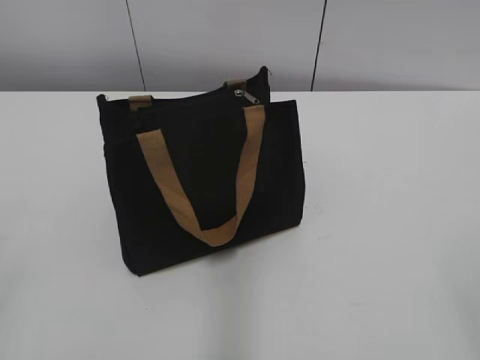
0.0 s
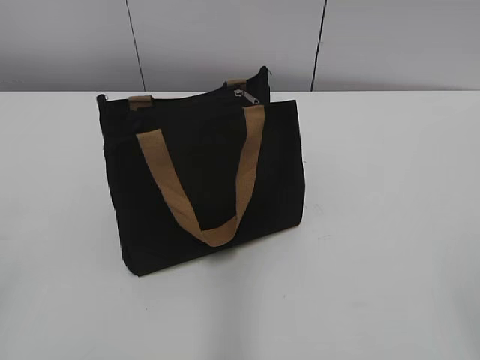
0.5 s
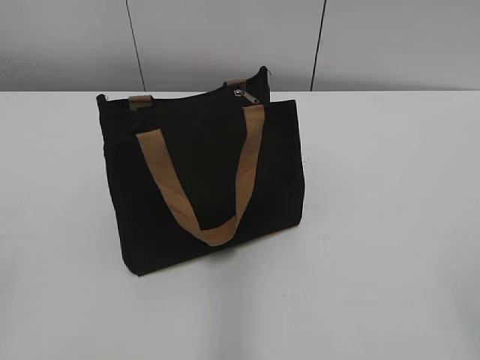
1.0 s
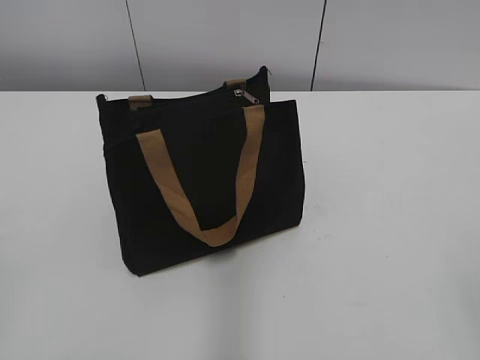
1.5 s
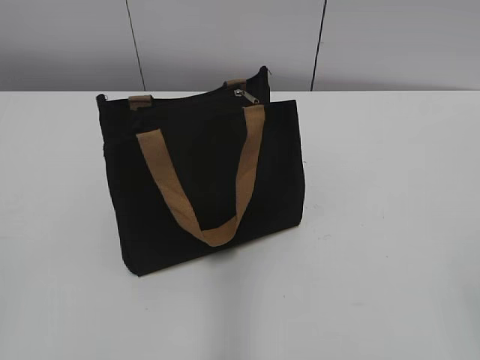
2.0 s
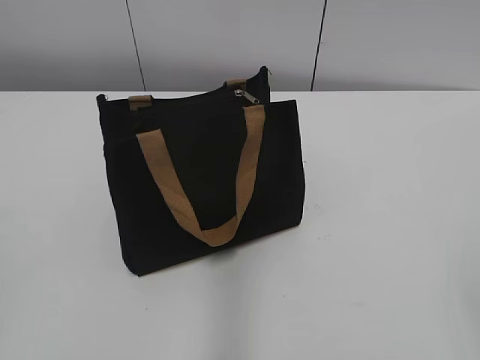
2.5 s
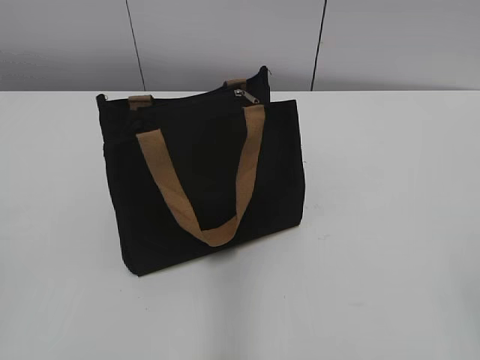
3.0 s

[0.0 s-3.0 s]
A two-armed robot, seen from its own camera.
1.5 to 3.0 s: Neither gripper changes place.

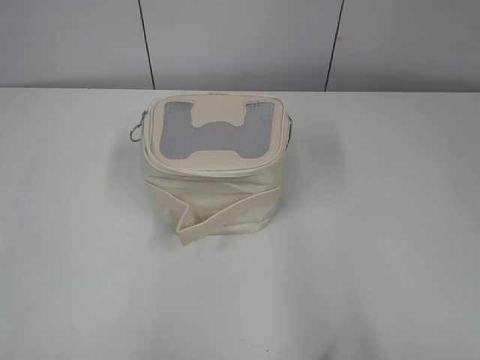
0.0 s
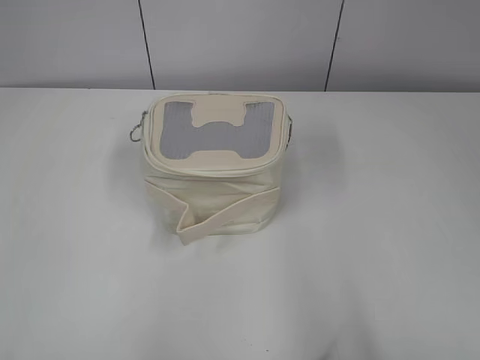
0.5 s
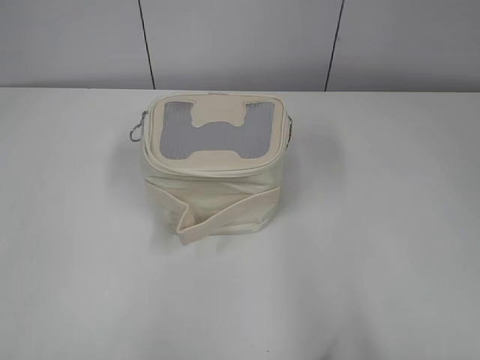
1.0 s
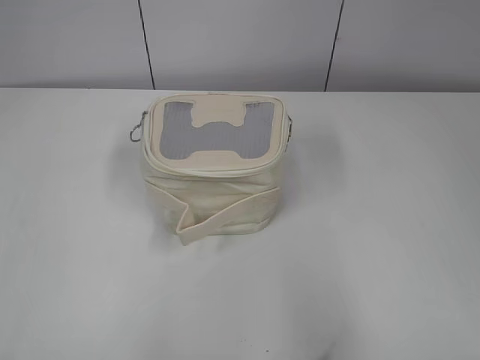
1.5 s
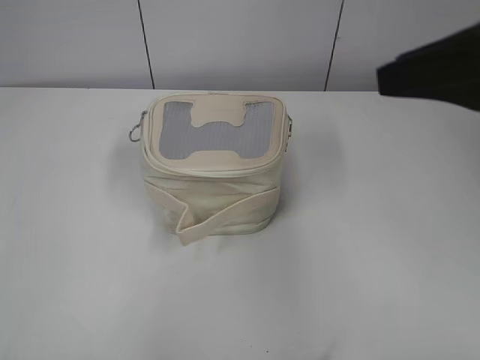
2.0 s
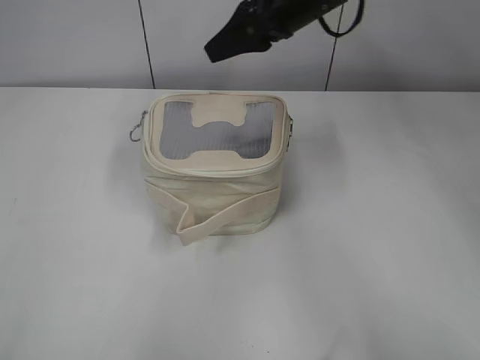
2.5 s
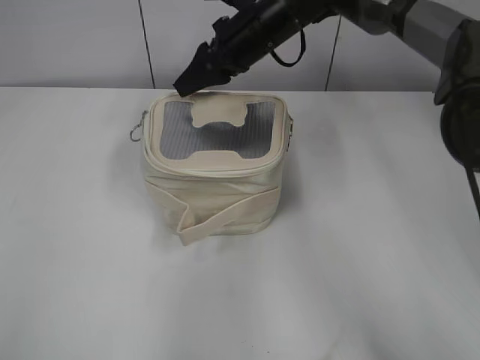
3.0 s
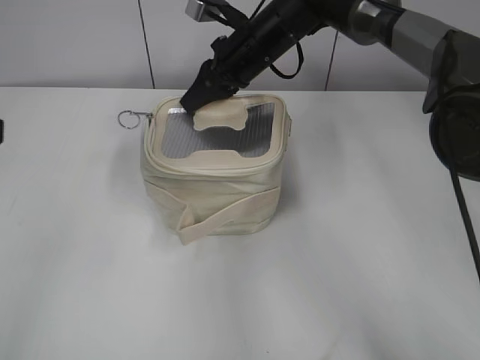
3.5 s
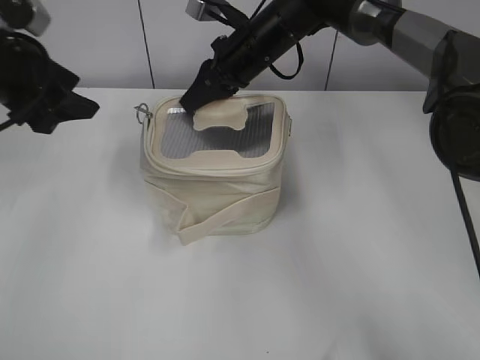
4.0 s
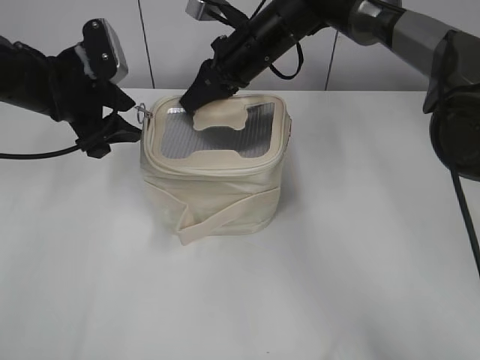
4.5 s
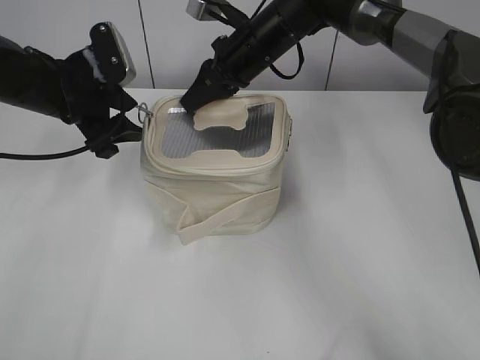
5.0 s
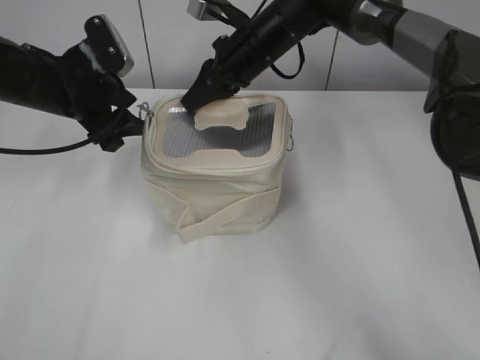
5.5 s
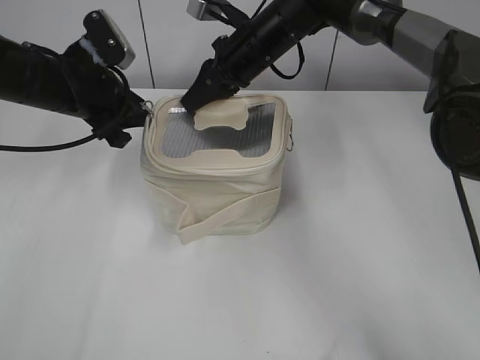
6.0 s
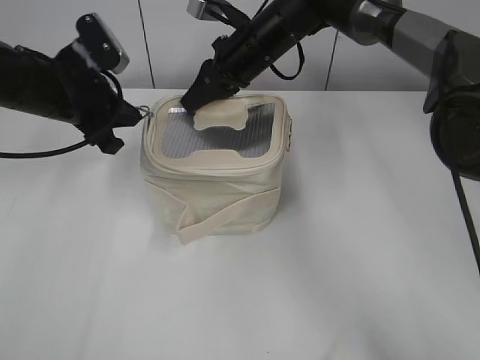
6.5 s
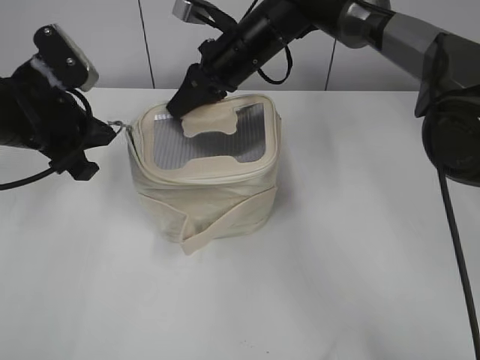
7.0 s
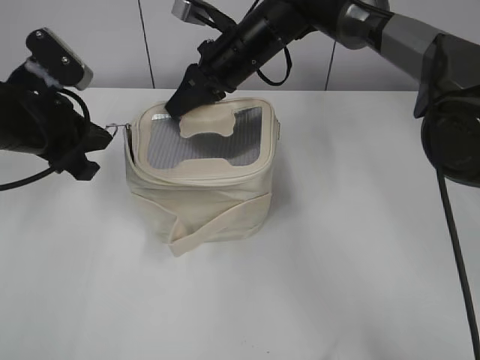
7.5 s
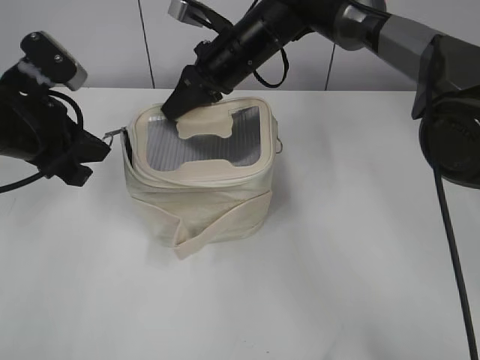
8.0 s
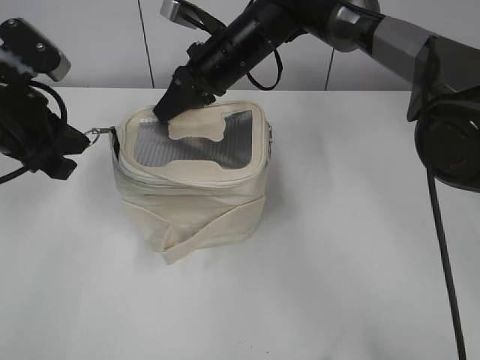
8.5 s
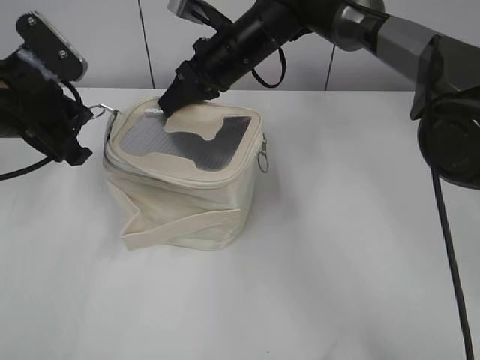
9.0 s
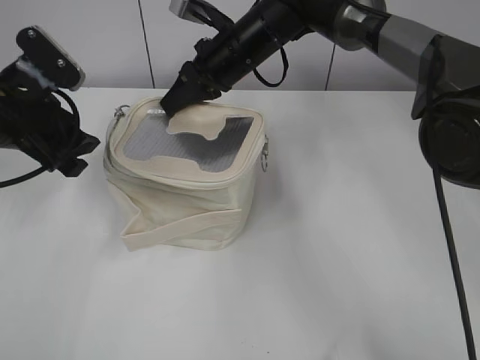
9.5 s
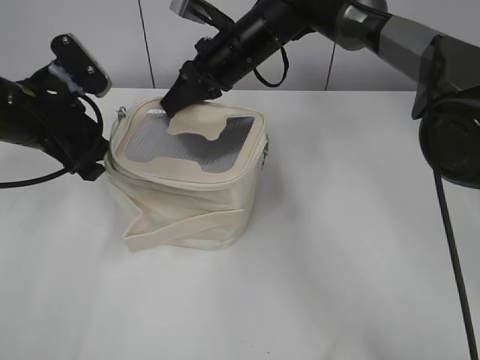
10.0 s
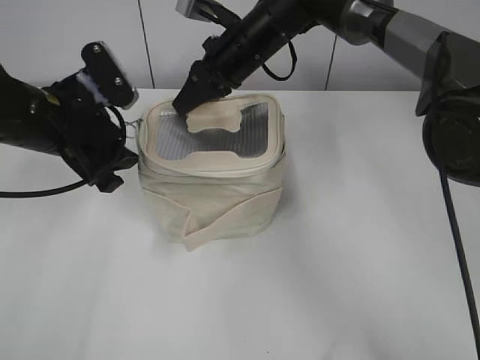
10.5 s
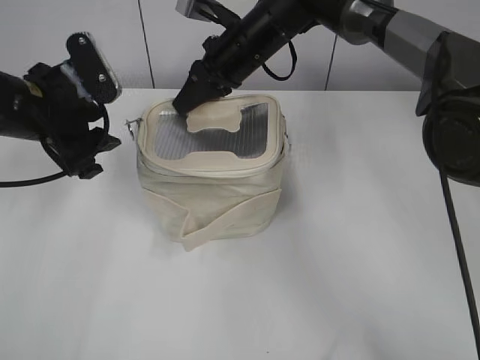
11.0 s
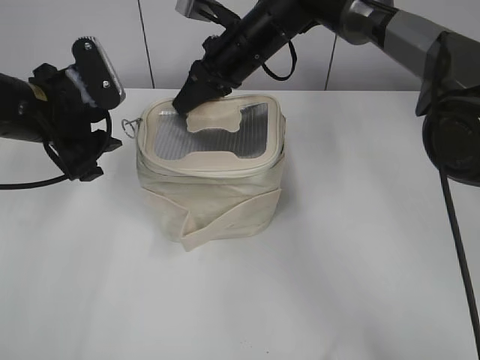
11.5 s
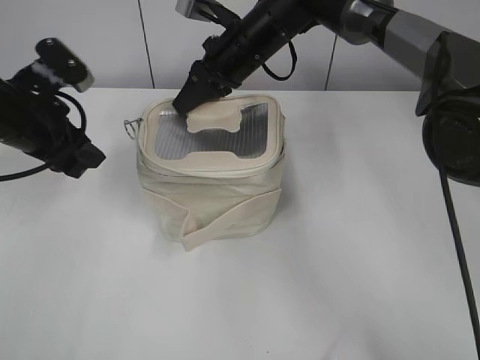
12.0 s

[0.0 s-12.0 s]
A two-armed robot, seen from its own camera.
2.0 to 4.0 s: The left gripper is displaced forward by approximately 30 cm, and opens up. The right gripper shifts about 35 cm forward, to the left and downward, and closes.
4.0 to 6.0 s: The left gripper heads to the right, downward and forward, covering some 10 cm, and closes its fingers.
6.0 to 8.0 s: The left gripper travels backward by about 10 cm, and closes up.
8.0 to 10.0 s: The left gripper opens its fingers.
10.0 to 12.0 s: The grippers stay close to where they were, moving slightly.

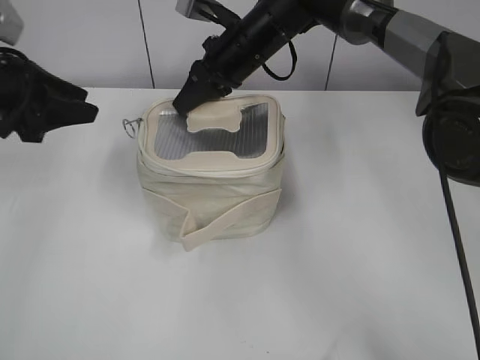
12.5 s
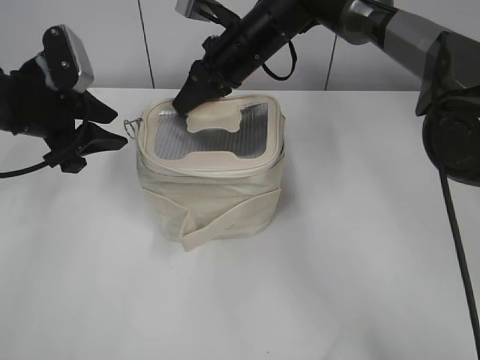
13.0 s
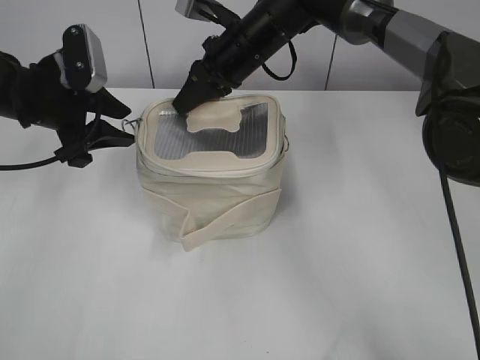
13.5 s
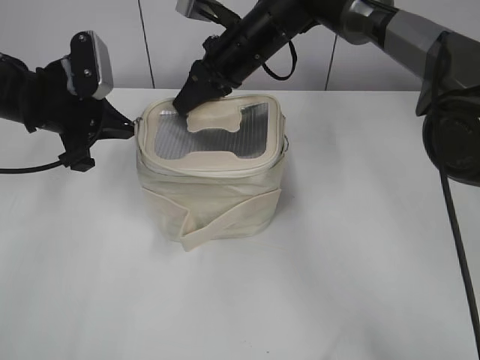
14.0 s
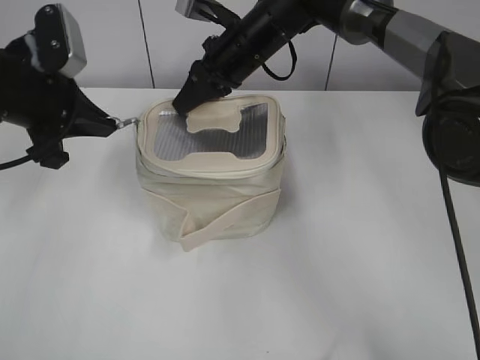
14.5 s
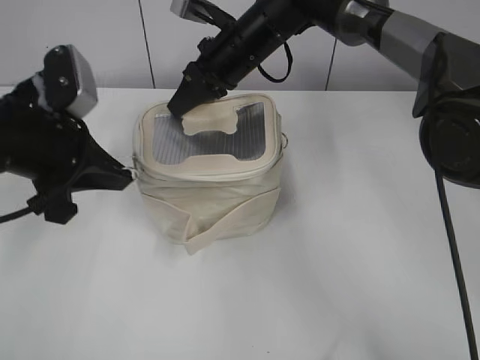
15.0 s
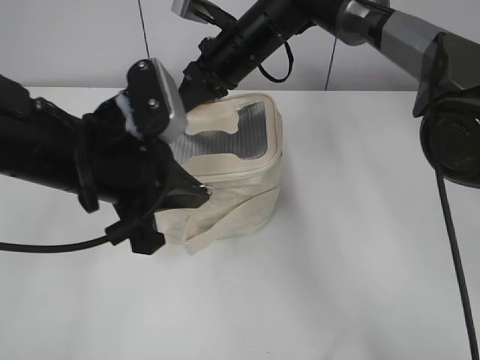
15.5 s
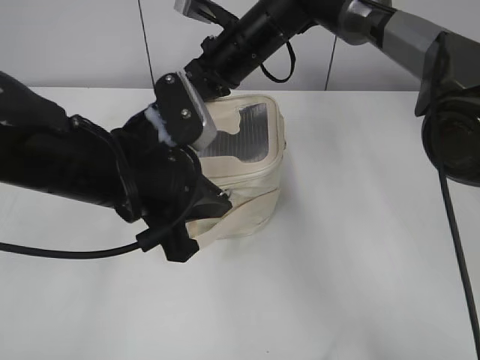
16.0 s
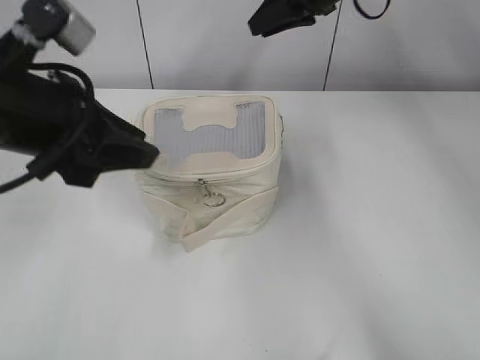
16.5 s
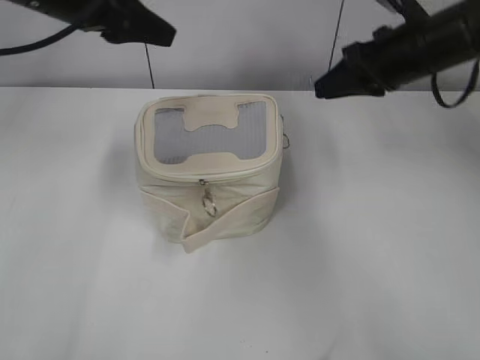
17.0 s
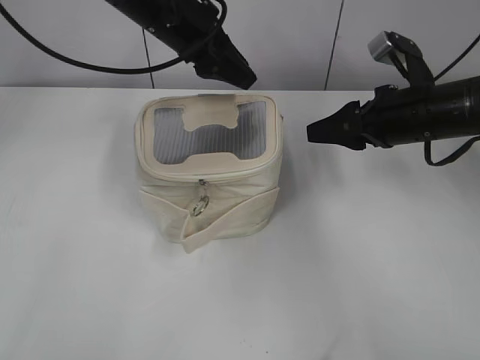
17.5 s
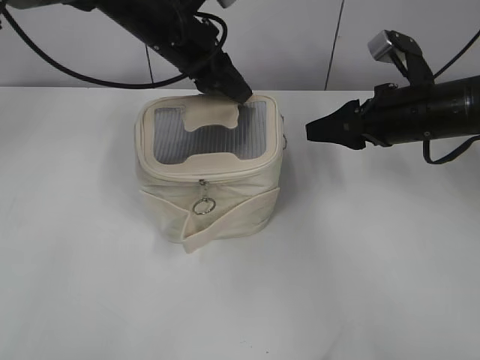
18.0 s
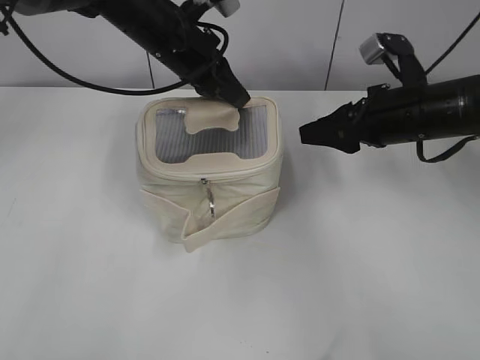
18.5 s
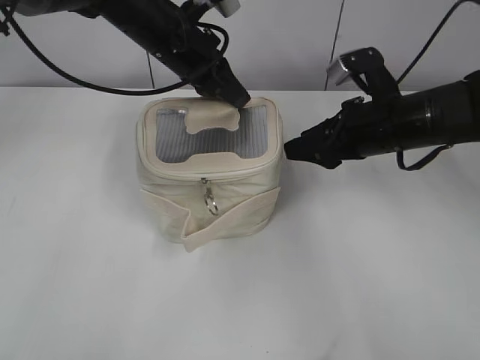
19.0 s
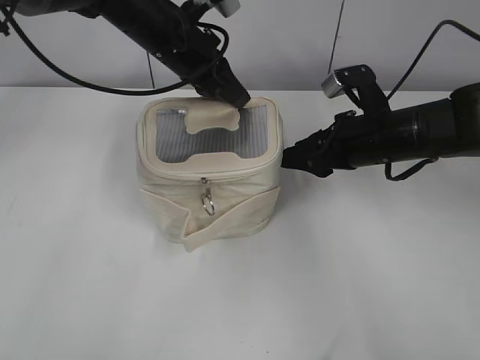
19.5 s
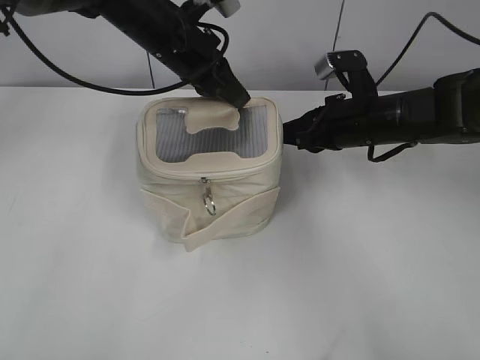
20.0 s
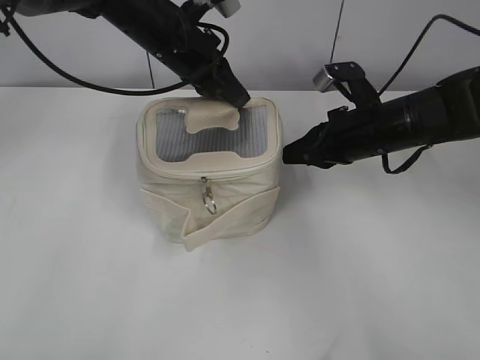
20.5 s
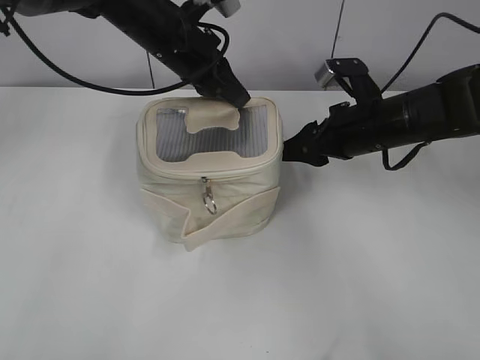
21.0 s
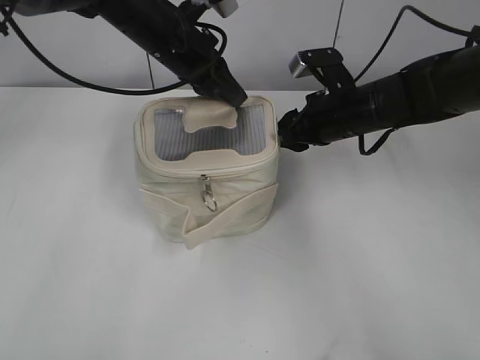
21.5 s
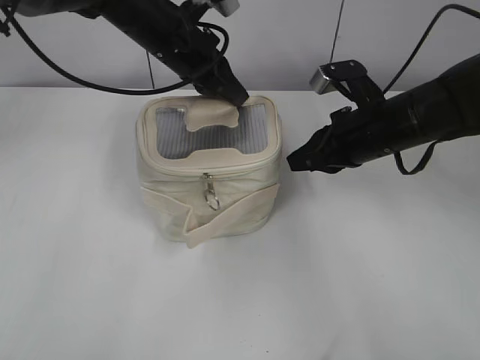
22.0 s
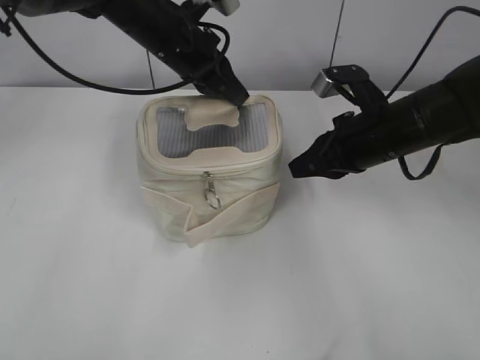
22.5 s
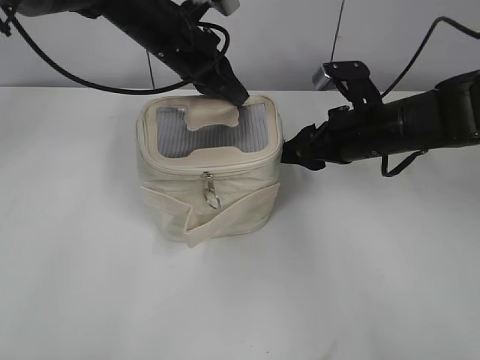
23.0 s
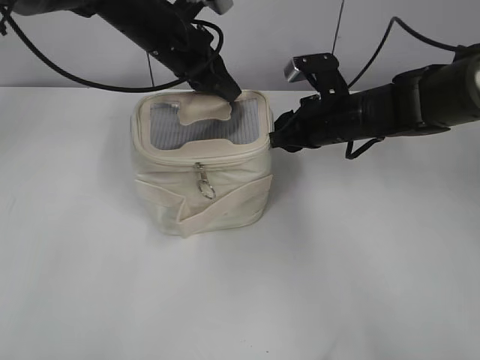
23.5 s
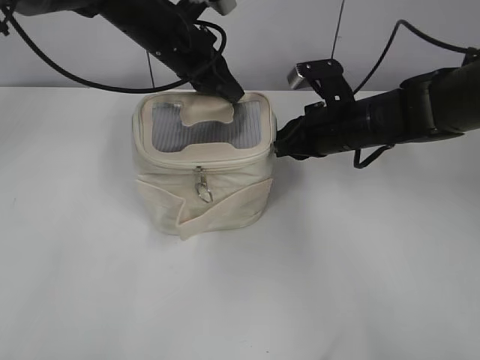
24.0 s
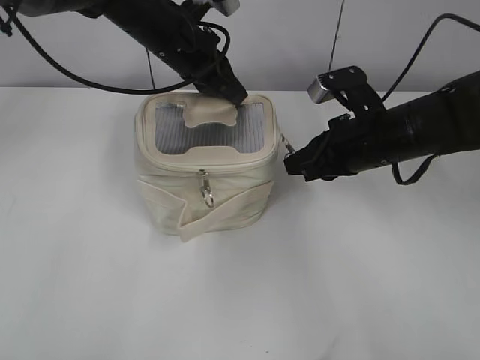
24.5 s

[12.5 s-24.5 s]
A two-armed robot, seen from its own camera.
Step, 12.5 to 16.0 s: Zip up the bag with your left hand.
12.5 to 14.5 s: The left gripper heads to the right, covering about 5 cm, and closes its fingers.
14.5 to 16.5 s: The right gripper moves to the right and upward, about 10 cm, and opens; the left gripper is displaced backward and to the right by roughly 10 cm, and opens.
16.5 to 18.5 s: The left gripper moves forward and to the right, some 25 cm, and closes up. Meanwhile the right gripper heads backward, to the right and downward, covering roughly 20 cm, and opens up.
18.5 to 20.5 s: The right gripper shifts by roughly 5 cm, and closes.
20.5 to 22.5 s: The right gripper opens, then closes again.
22.5 to 24.5 s: The right gripper opens, then closes once more.
